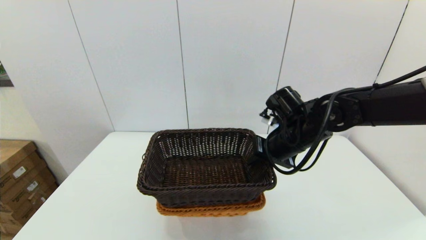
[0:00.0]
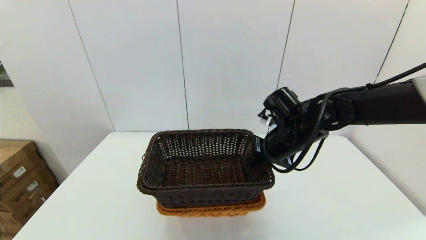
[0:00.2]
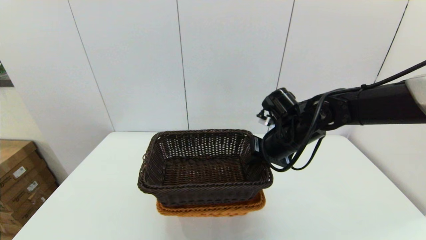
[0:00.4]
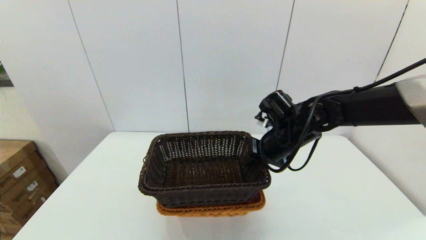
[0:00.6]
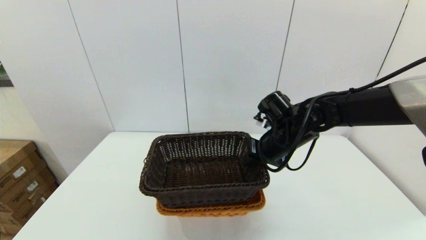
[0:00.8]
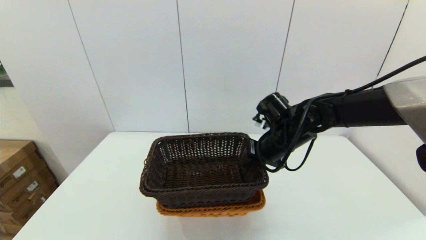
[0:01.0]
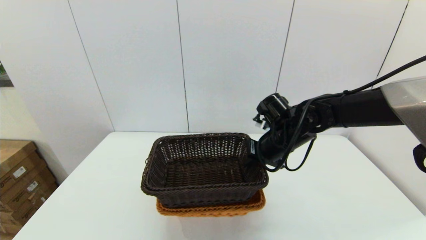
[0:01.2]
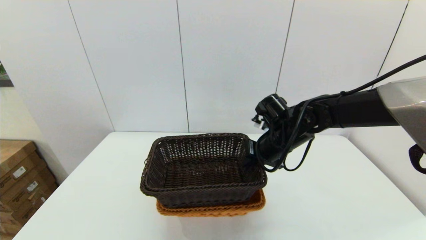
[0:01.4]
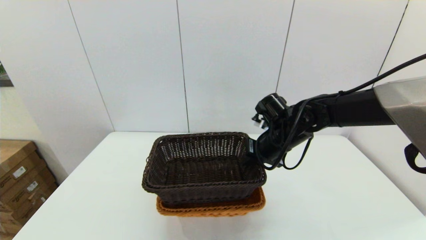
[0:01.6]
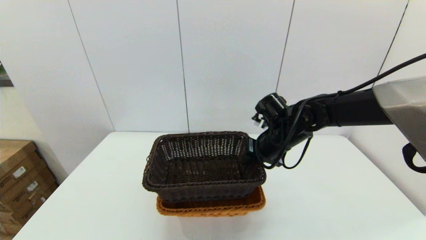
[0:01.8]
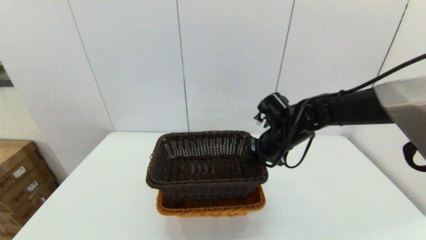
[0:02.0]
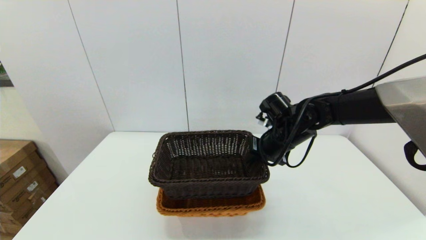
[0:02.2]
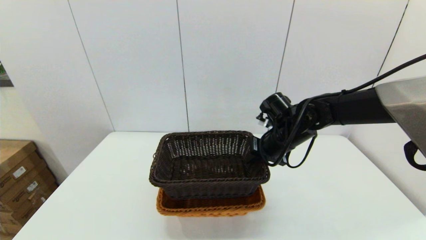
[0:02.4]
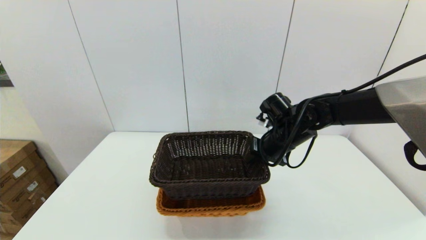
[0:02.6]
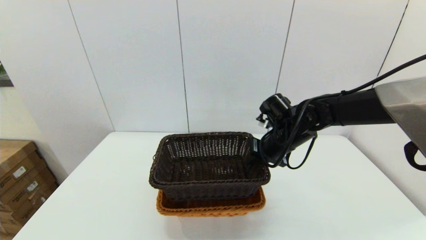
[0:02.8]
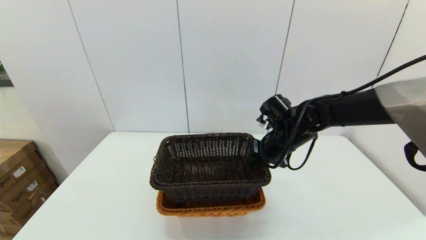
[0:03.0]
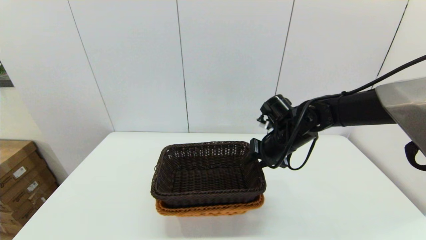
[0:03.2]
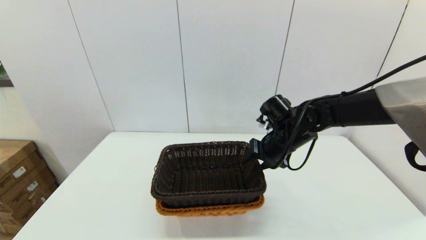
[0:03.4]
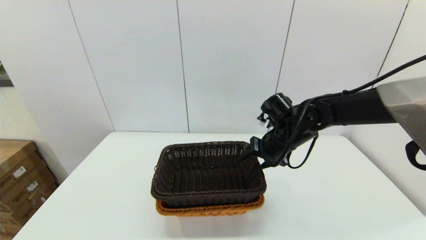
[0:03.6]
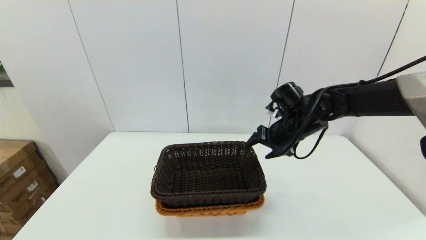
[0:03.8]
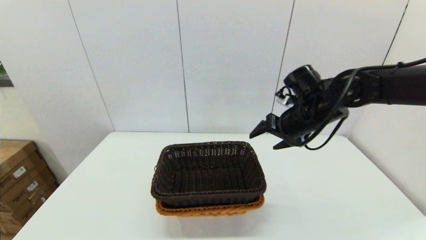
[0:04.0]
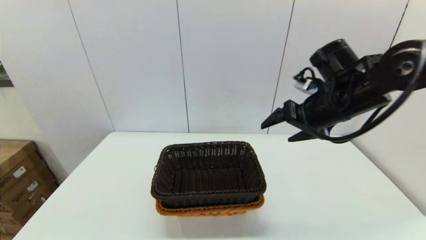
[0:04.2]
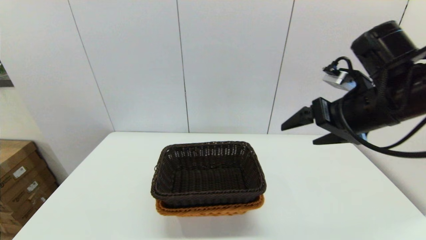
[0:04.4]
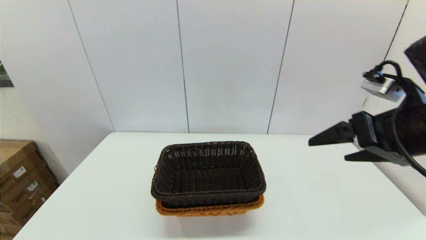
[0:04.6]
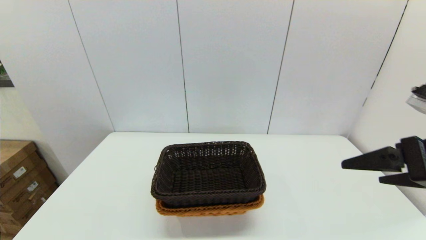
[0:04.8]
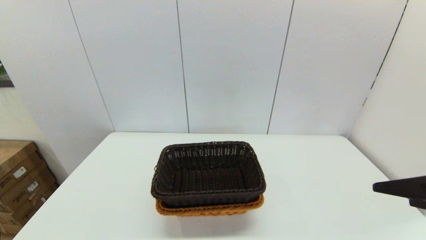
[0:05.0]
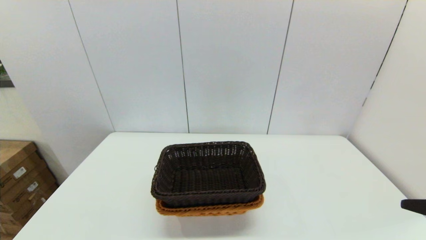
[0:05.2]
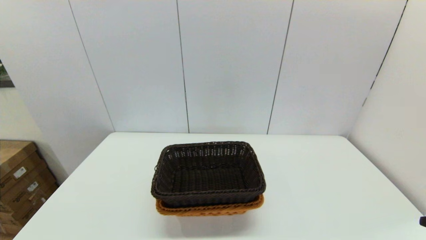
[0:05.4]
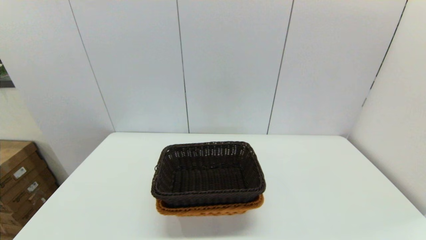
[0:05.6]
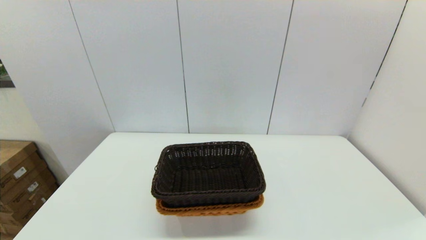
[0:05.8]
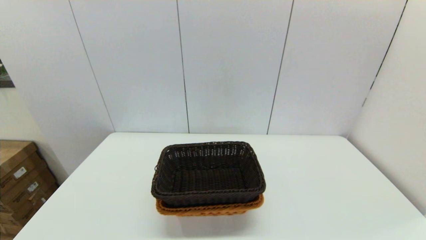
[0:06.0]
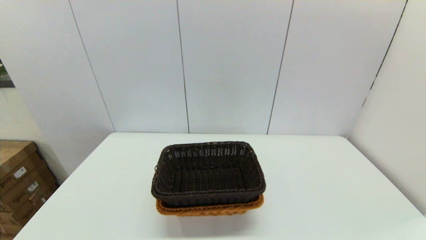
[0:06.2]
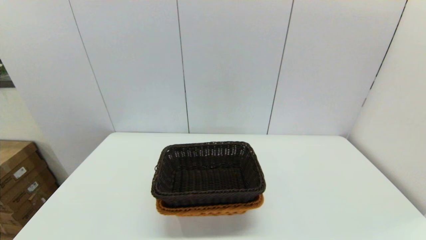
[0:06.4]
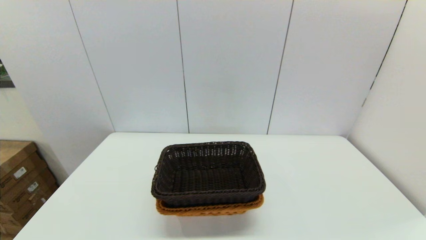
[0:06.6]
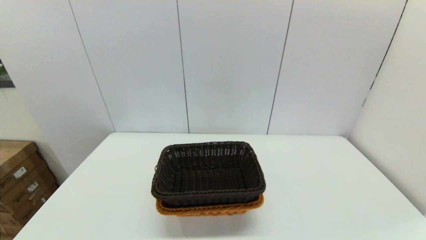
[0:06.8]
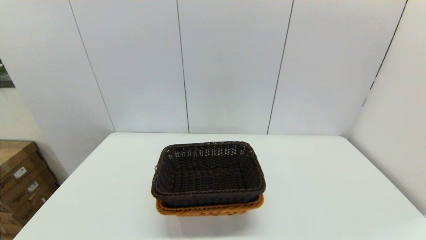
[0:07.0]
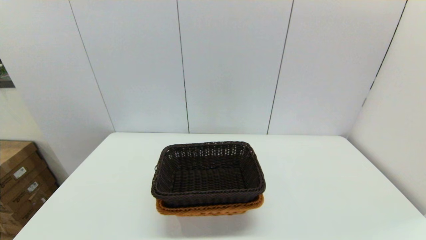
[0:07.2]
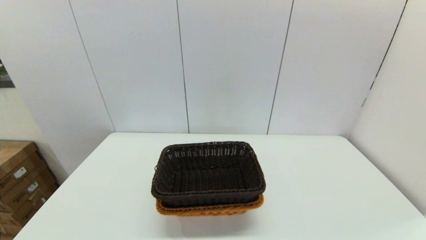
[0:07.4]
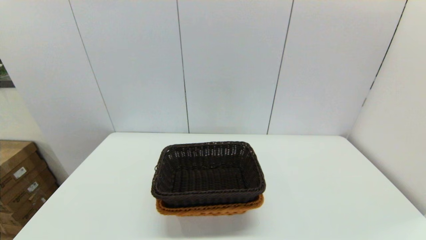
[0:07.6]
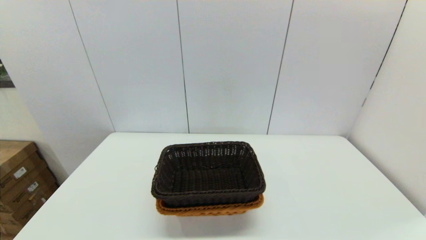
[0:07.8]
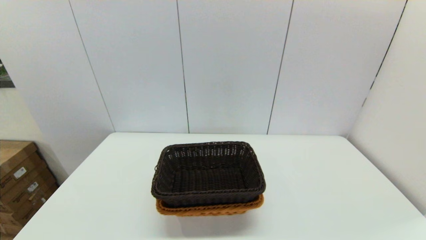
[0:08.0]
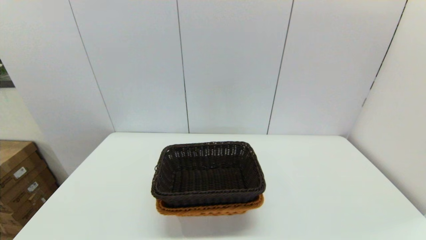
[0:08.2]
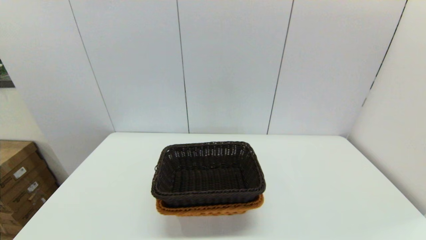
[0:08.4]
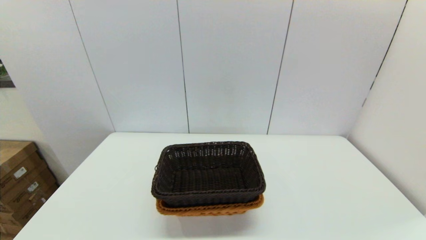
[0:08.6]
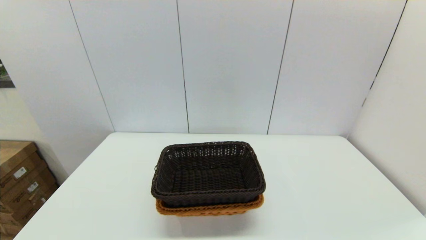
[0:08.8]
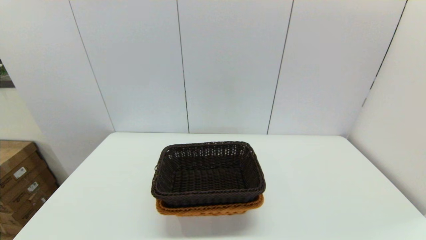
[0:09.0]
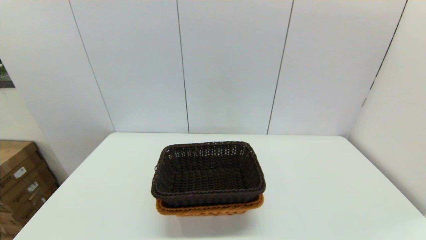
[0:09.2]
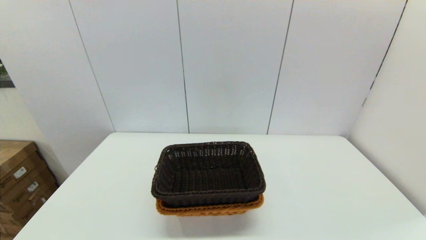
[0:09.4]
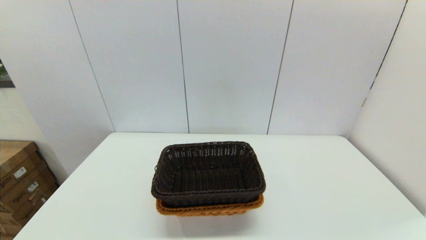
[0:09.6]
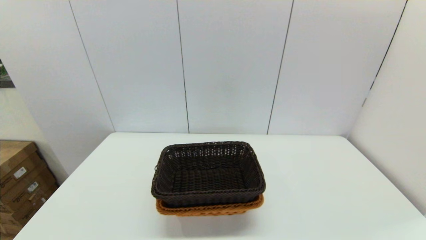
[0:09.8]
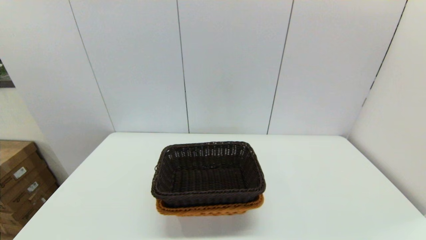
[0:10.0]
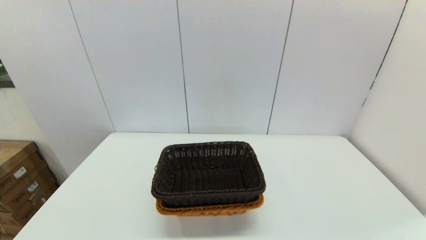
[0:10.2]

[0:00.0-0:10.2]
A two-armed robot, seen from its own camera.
Task of the whole recording: stack a basket on top of another basket.
Step, 0:00.0 to 0:03.8: Place the dark basket into the light color basket with the right gripper.
0:00.0 to 0:03.0: The grippers move only a little.
0:03.0 to 0:04.4: The right gripper heads upward, backward and to the right, covering about 20 cm, and opens.
0:04.4 to 0:05.8: The right gripper travels backward by some 25 cm.
